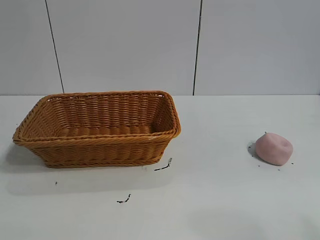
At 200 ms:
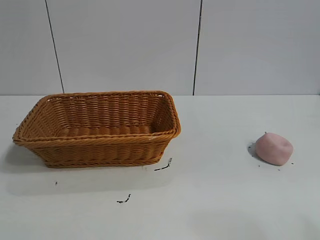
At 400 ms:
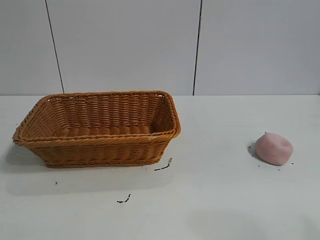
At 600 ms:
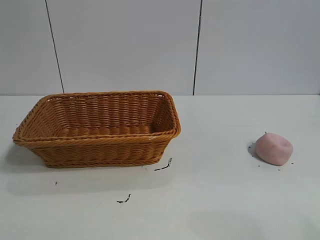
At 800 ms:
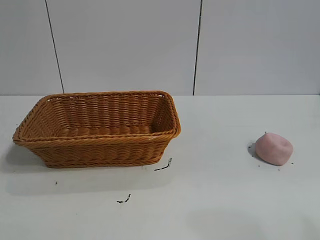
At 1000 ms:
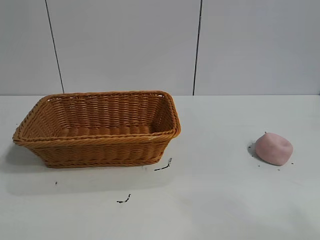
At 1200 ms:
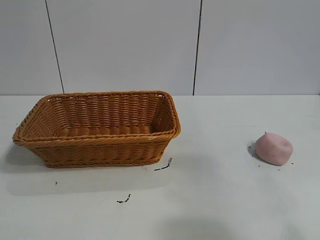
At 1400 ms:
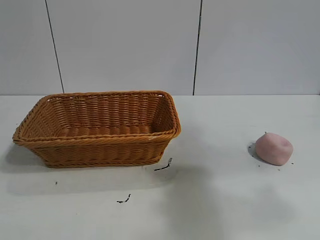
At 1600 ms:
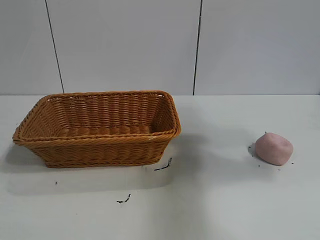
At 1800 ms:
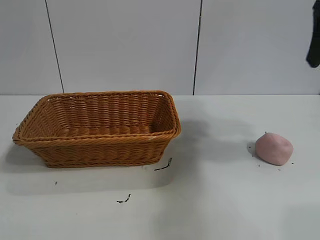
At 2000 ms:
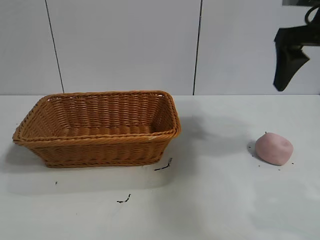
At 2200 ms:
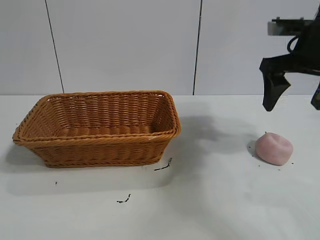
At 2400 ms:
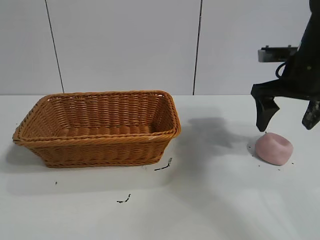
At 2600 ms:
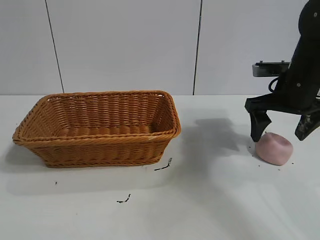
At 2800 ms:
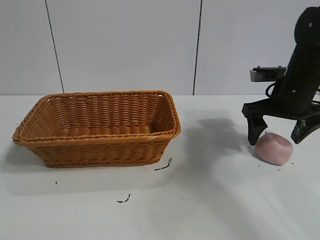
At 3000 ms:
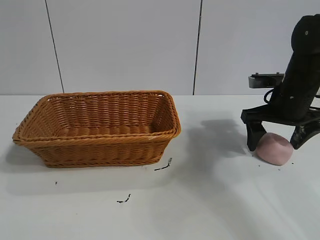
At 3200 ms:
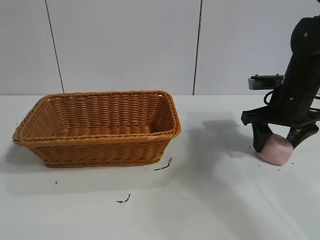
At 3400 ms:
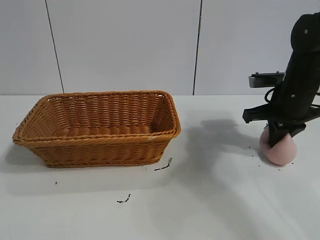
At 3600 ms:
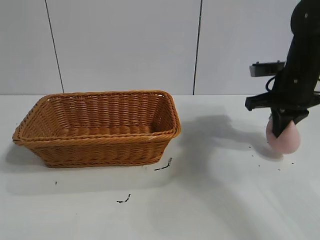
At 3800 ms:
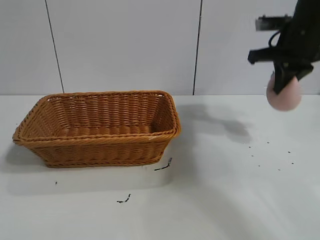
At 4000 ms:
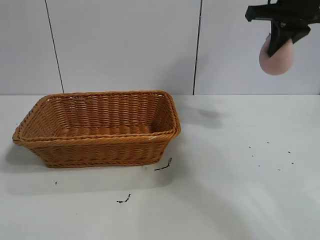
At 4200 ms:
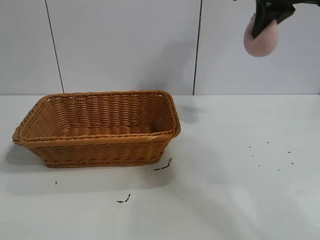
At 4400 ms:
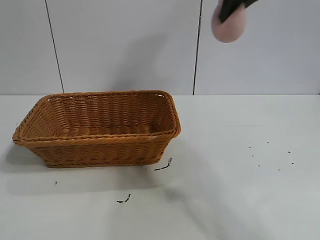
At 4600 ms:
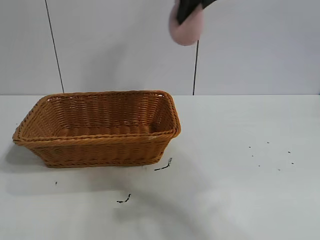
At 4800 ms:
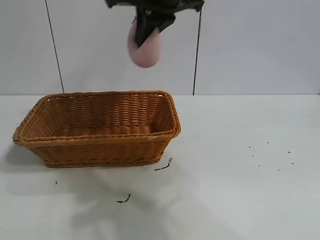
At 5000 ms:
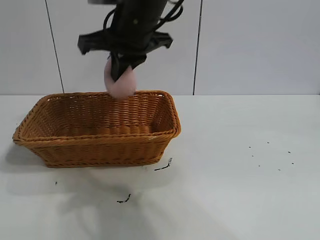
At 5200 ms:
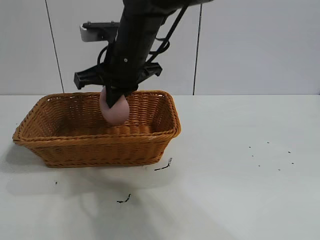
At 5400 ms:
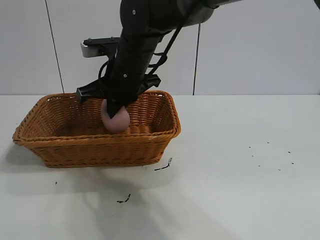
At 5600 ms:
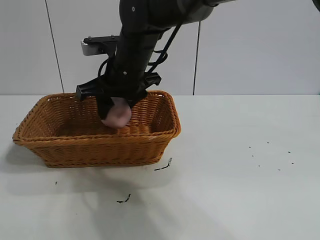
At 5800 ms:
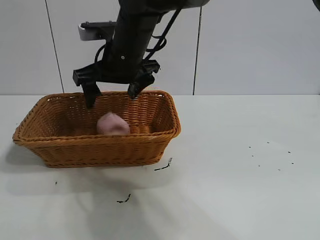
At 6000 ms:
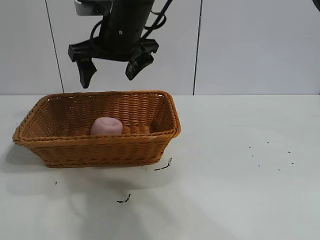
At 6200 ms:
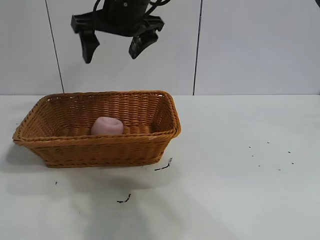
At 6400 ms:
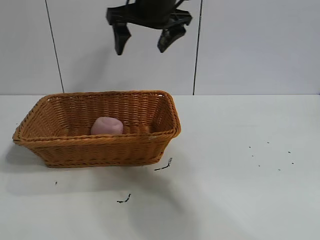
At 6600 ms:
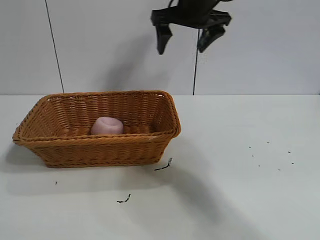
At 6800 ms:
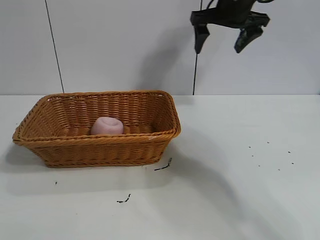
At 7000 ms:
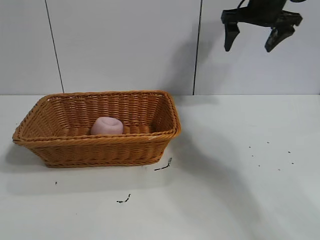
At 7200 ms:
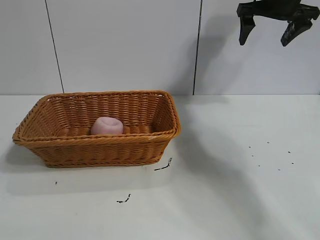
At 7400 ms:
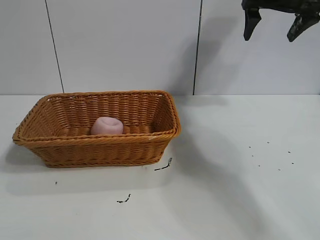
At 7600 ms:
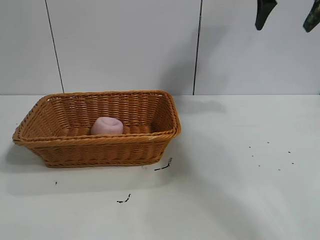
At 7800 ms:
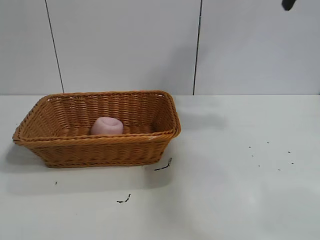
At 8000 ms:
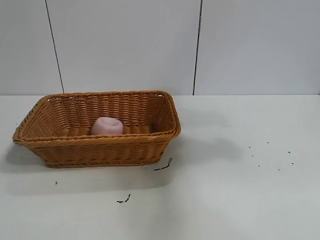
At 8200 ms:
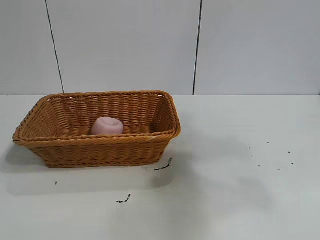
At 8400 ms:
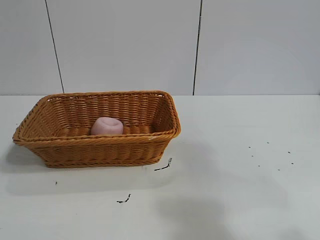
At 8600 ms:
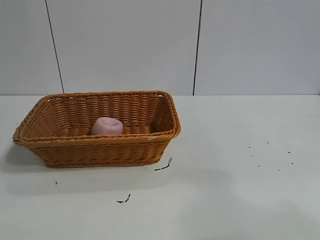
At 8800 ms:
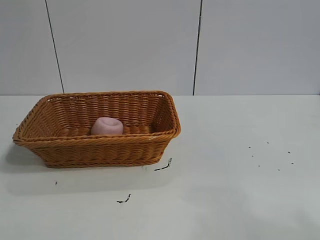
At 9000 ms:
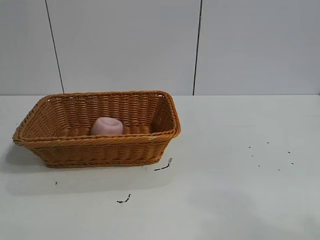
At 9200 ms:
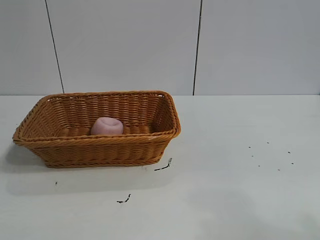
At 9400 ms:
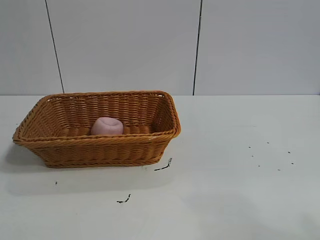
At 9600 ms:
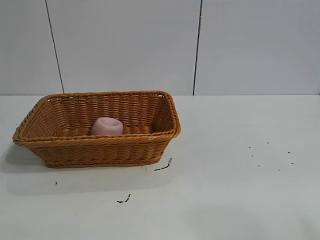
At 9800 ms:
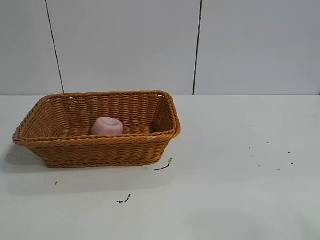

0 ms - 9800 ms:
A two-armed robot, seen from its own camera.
Task of the whole recording: pick up the peach and put it into the basket.
Step, 1000 ms - 3200 ms: Grasp the peach with right gripper.
Step, 3400 ms - 5600 ms: Place the peach in the basket with right gripper.
